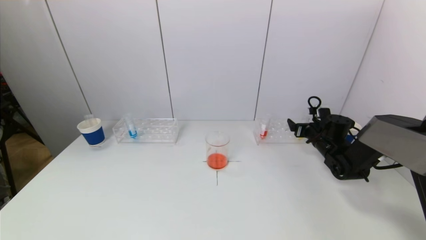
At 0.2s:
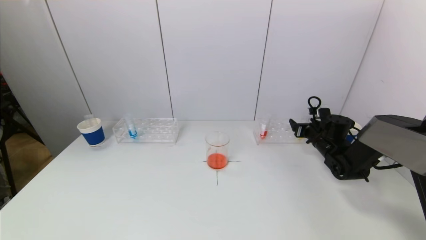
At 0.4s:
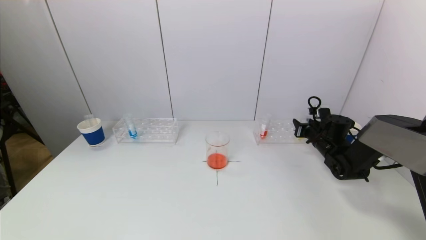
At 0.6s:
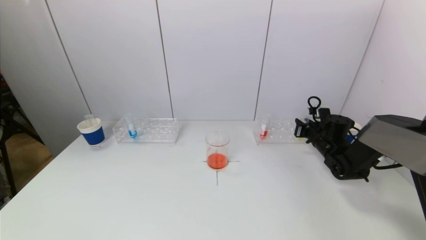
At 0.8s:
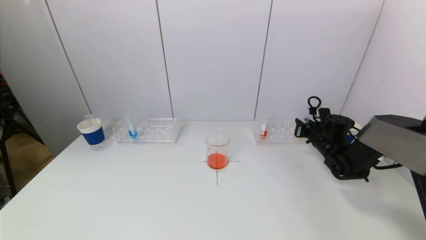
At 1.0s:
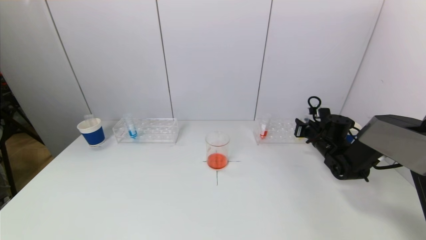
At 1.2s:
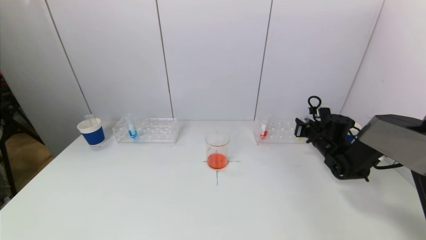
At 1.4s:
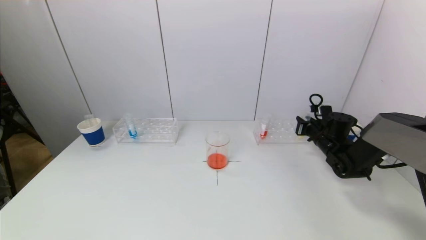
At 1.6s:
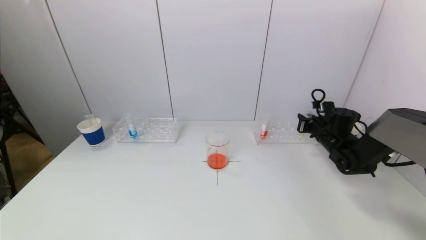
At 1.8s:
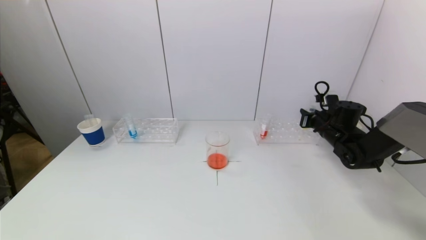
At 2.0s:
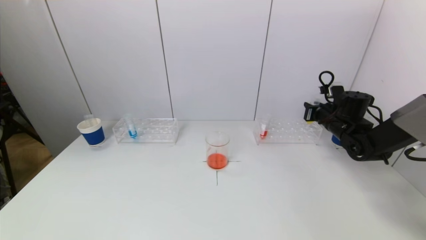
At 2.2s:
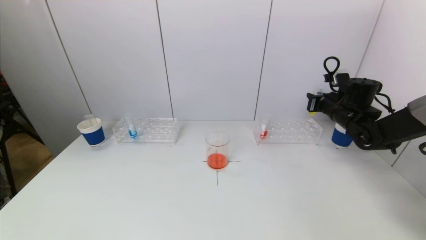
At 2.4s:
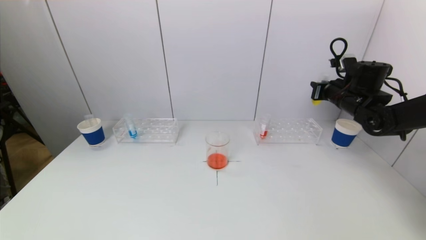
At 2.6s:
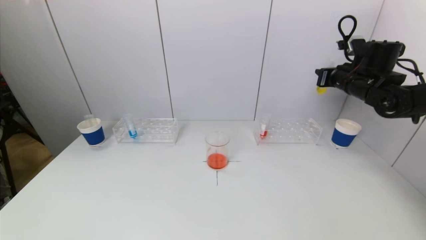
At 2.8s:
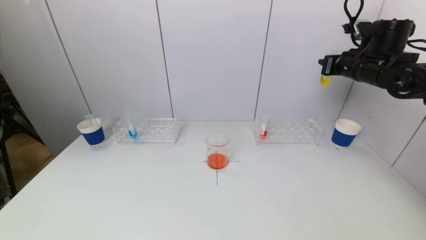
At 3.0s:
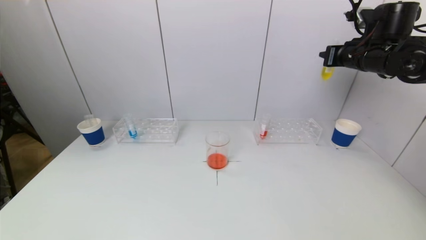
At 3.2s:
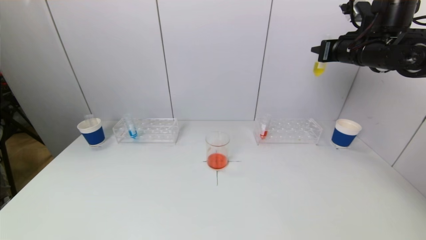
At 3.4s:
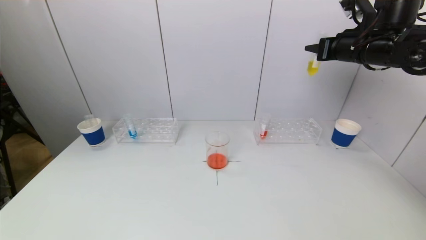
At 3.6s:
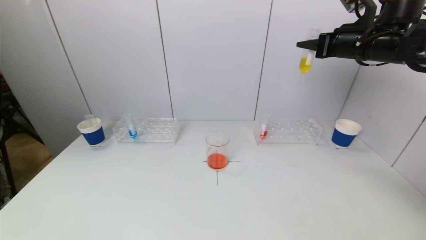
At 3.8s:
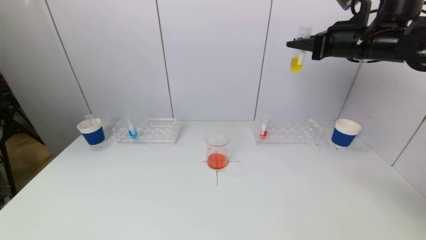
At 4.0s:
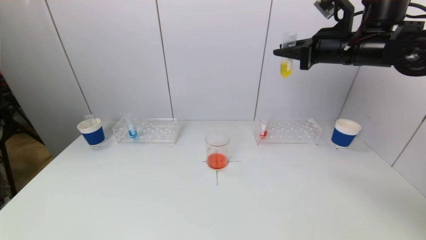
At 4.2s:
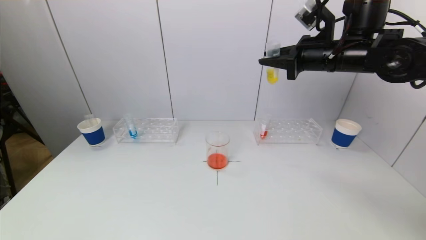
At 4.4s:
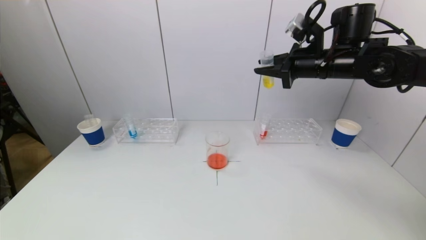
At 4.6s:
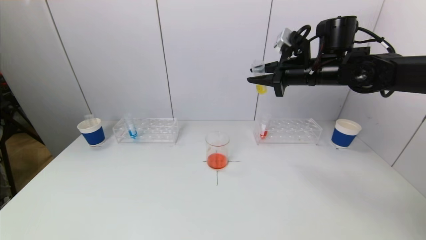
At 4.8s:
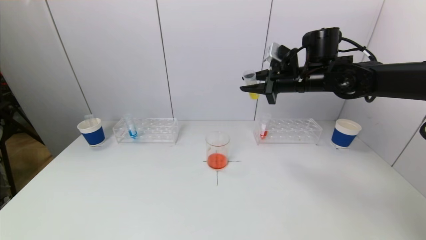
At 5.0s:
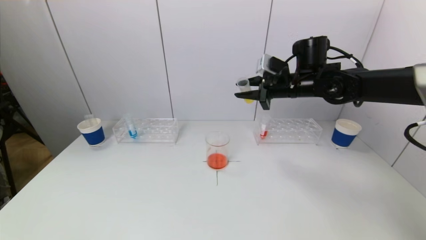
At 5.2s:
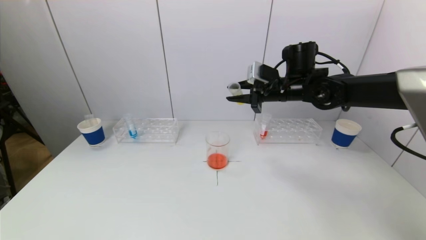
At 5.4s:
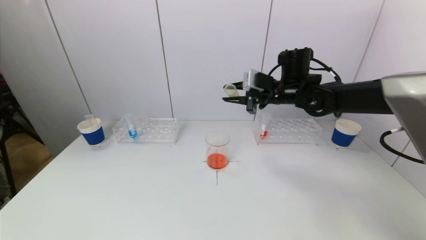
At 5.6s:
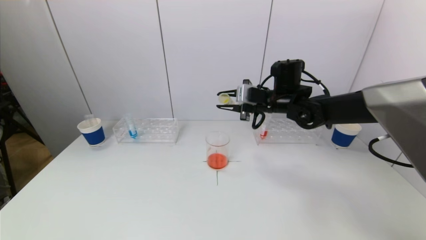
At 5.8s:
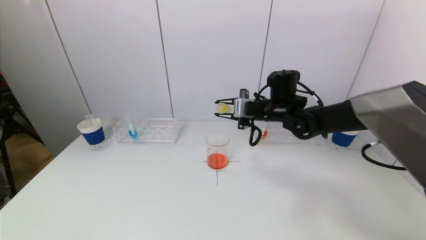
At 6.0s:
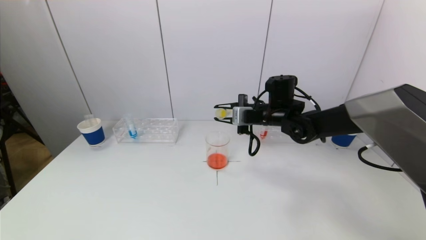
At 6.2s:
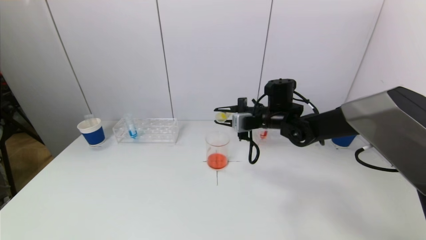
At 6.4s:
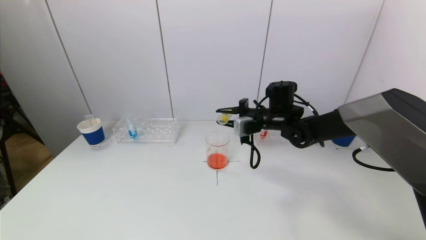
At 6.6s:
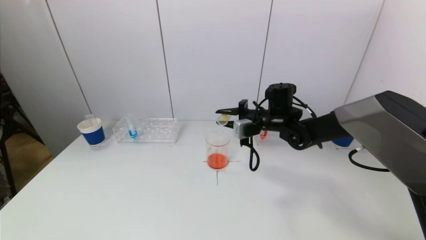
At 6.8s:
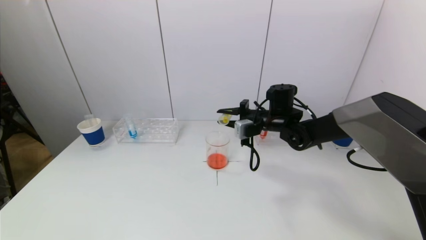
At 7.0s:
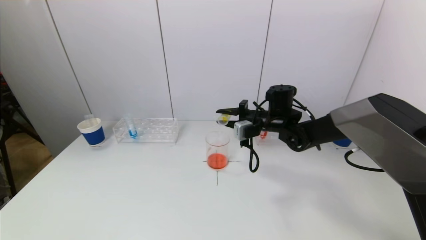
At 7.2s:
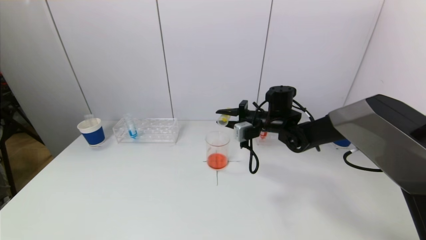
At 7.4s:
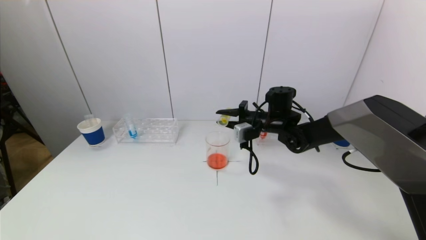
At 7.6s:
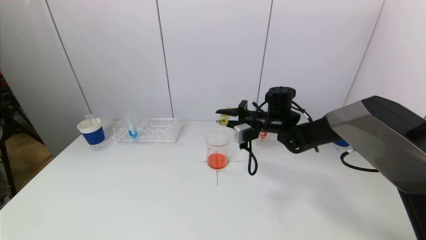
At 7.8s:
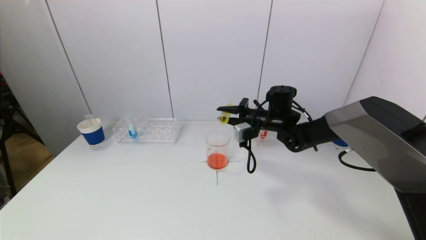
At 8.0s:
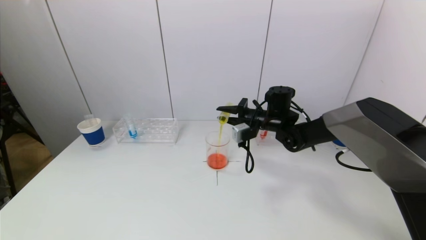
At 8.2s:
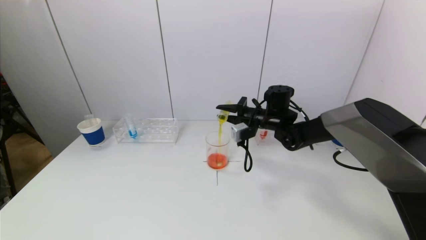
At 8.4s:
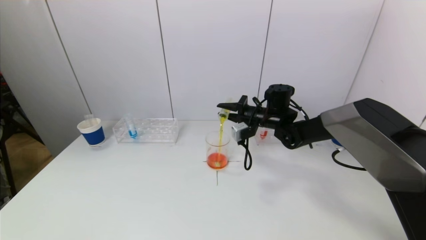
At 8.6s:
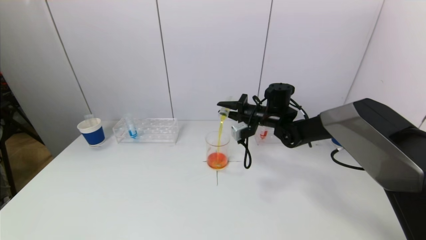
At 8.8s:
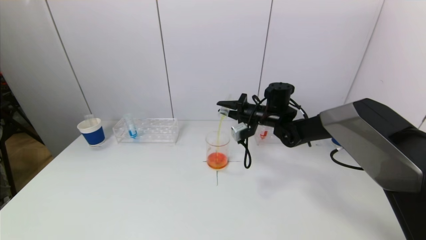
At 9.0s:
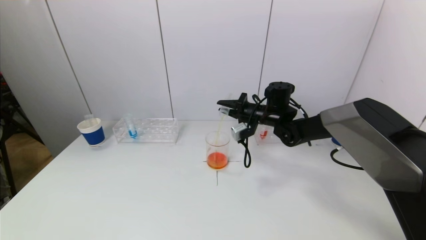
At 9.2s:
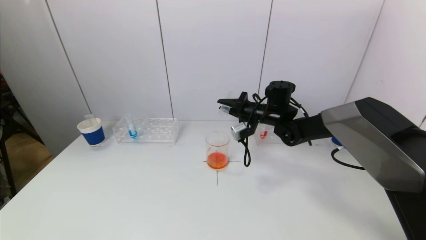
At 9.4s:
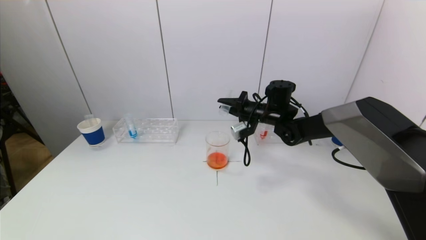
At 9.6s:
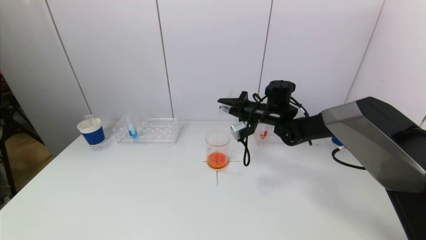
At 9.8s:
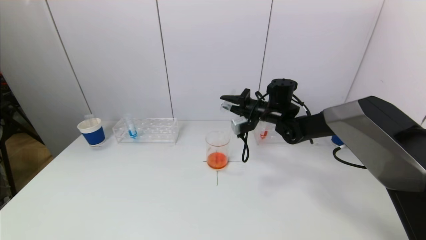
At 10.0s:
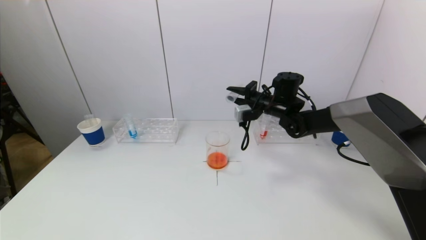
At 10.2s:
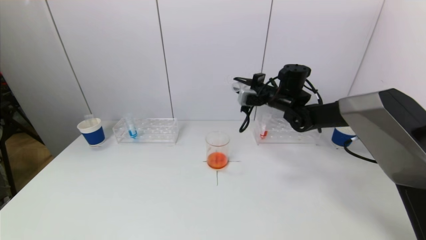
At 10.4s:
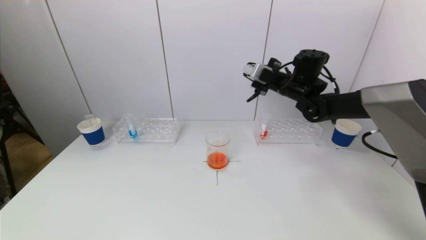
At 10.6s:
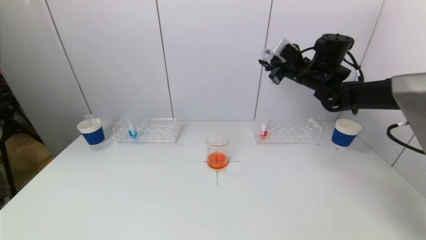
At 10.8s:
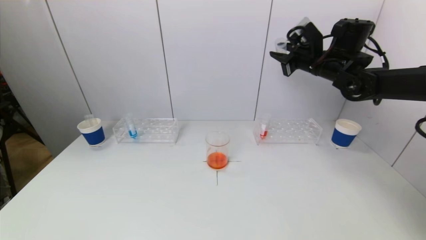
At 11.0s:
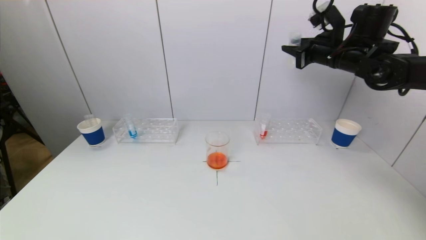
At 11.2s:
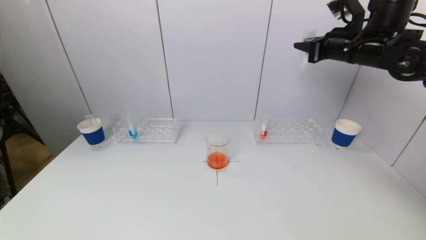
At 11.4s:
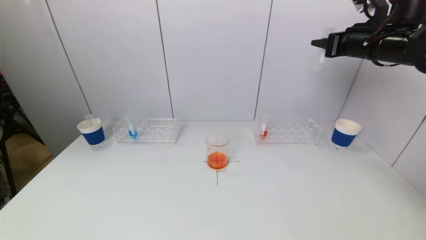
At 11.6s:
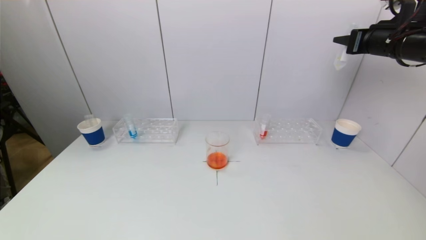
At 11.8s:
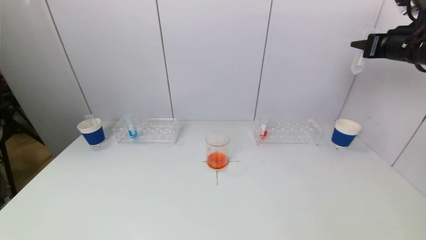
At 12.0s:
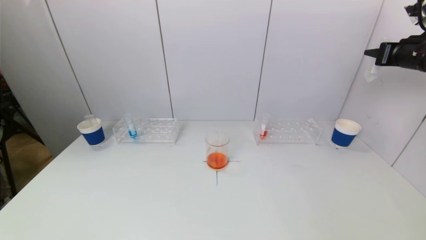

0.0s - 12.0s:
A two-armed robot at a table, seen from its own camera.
Task of the whole recording: pick up a test tube with pigment on left test tube rack and a test tube with pigment on right test tube rack by grippers and pour them into the beaker.
Step, 1.2s - 9.8s: Pour the yellow reagent into the graduated cylinder with the right gripper.
0.0s - 1.6s: The right gripper closes its fingers.
1.6s - 3.0s: The right gripper travels upward by roughly 25 cm.
3.0s - 4.4s: The right gripper heads to the left, covering roughly 10 cm.
4.4s - 6.0s: The right gripper heads downward and to the left, covering roughly 15 cm.
6.0s - 7.6s: There are only small adjustments of the grippers.
9.0s - 10.4s: The right gripper goes approximately 10 cm upward and to the right.
10.4s - 12.0s: The right gripper heads to the right, backward and upward, covering approximately 25 cm.

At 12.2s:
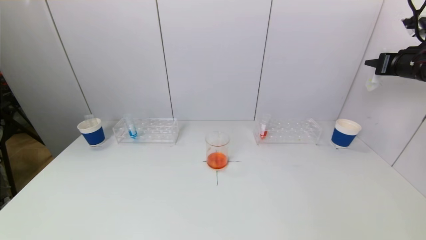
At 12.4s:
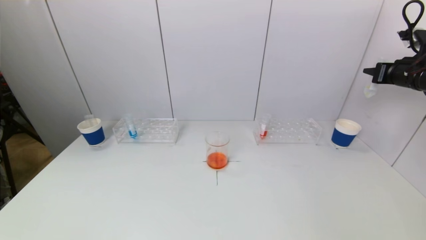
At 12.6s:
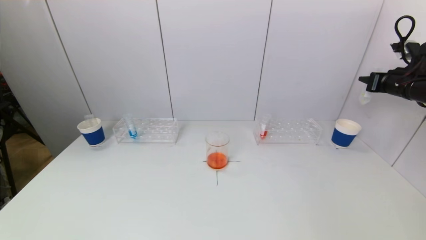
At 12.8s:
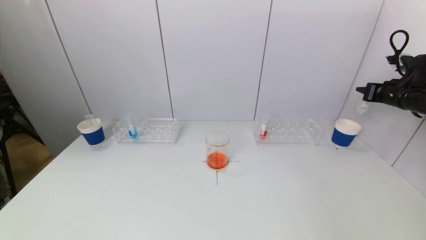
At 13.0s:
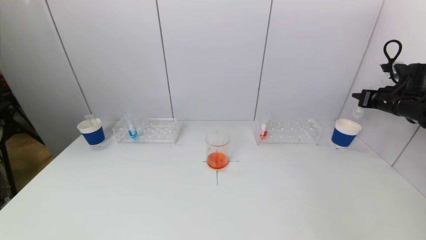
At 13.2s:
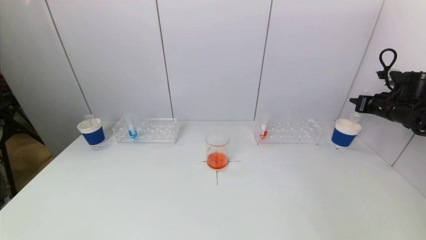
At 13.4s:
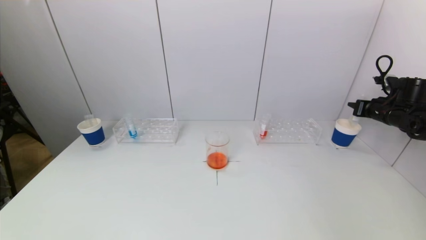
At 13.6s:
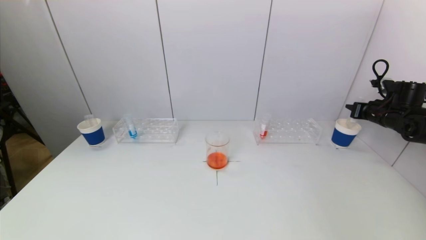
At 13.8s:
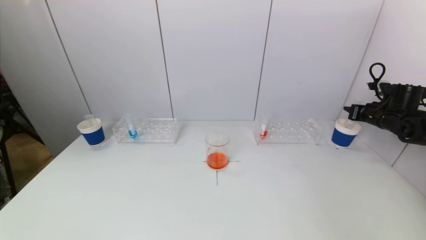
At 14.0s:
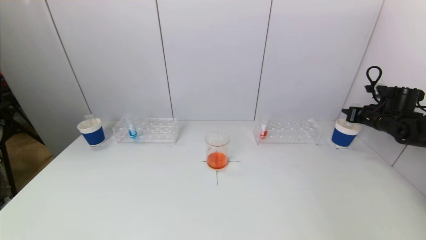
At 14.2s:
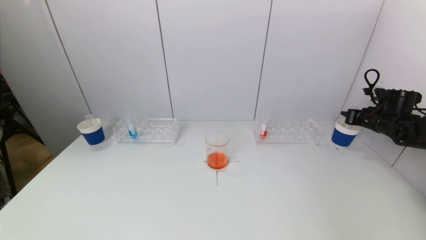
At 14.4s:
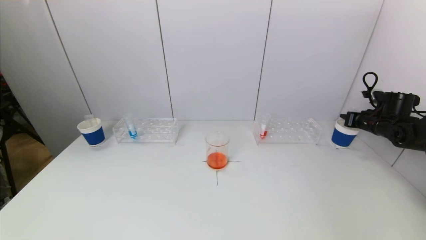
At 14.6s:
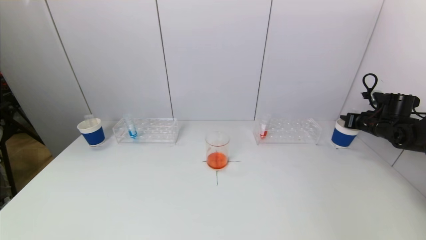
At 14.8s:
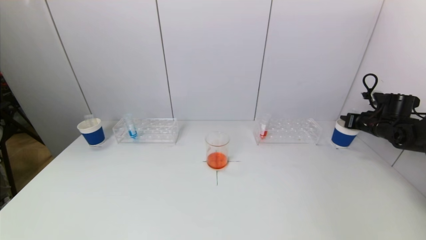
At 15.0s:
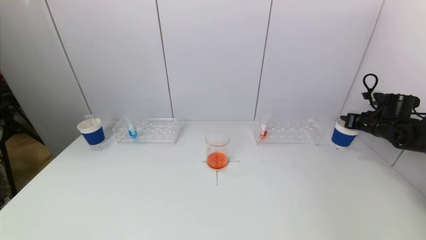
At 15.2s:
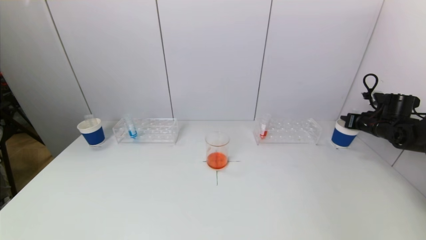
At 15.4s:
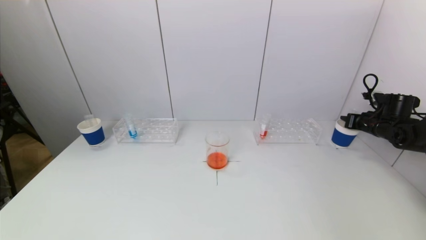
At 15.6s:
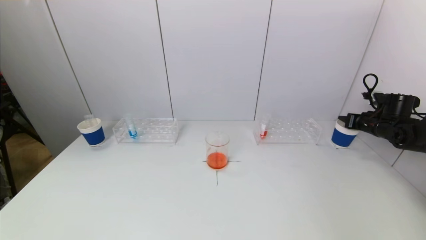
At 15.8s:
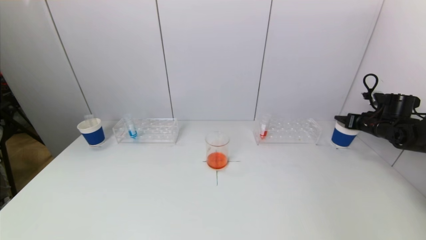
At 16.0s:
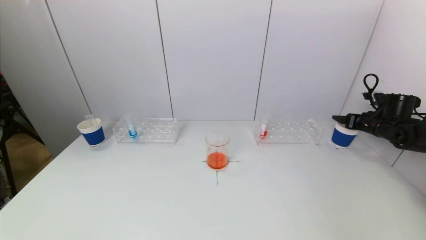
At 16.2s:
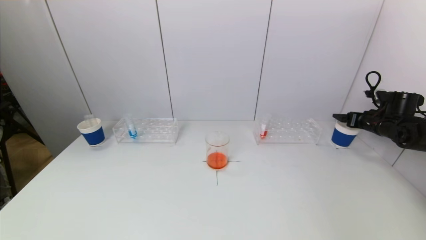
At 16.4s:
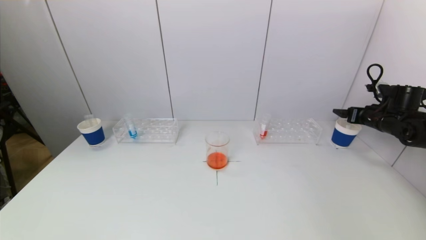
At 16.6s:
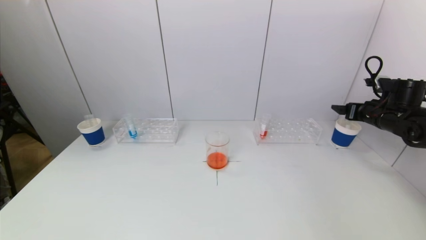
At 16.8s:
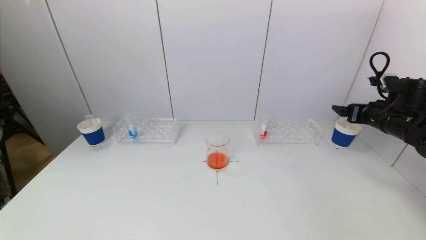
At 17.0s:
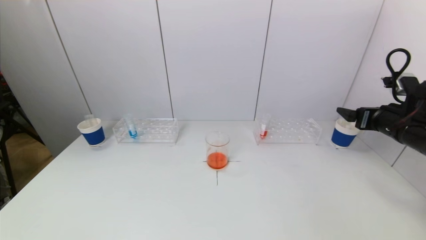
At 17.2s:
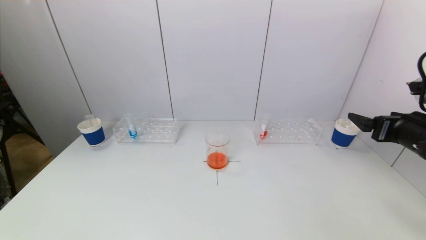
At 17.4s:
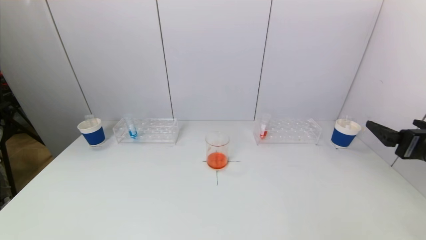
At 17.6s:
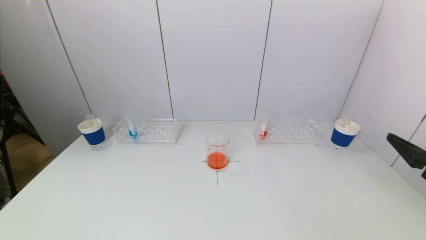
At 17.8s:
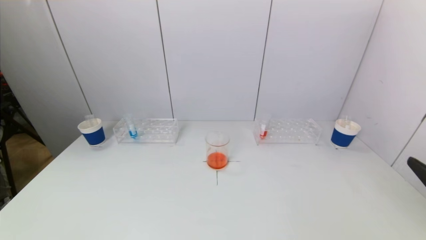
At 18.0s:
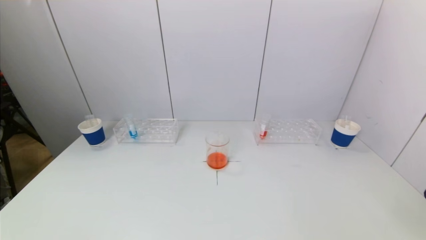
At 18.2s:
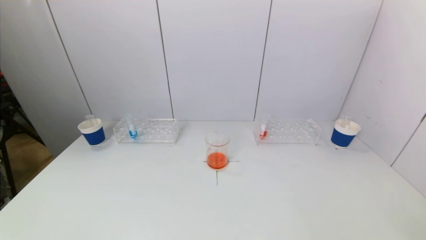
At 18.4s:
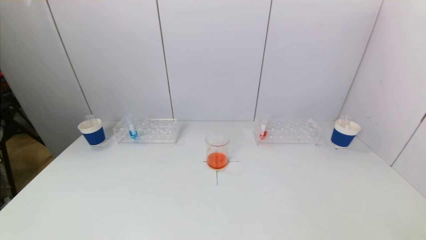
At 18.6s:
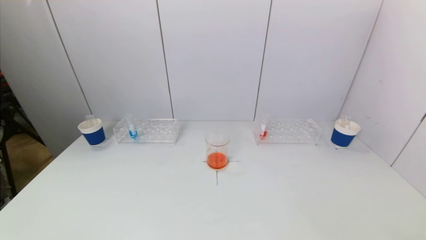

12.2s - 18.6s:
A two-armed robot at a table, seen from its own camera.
Task of the whole recording: pick up a test tube with pigment on left test tube rack and a test tube with pigment on right test tube rack by grippers and pour them into the beaker.
Step, 12.2s - 16.0s: Place the test tube into the paper cup with the right gripper.
12.2s - 13.8s: The right gripper heads downward, covering approximately 15 cm.
13.8s - 15.4s: The grippers stay close to where they were, moving slightly.
15.4s - 17.0s: The right gripper moves backward, to the left and upward, about 20 cm, and opens its fingers.
17.0s - 18.6s: The right gripper heads backward, covering some 30 cm.
